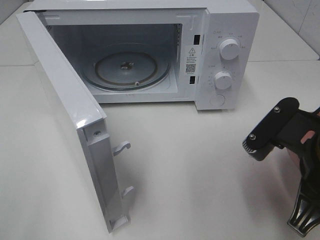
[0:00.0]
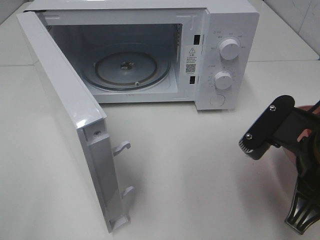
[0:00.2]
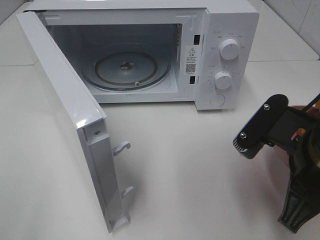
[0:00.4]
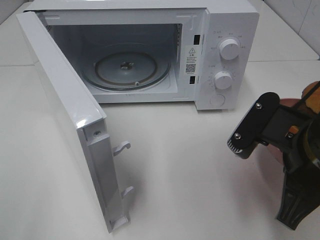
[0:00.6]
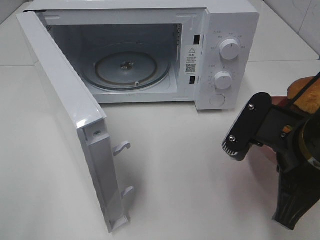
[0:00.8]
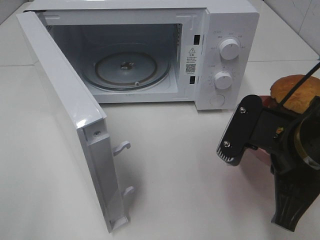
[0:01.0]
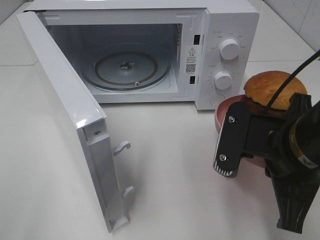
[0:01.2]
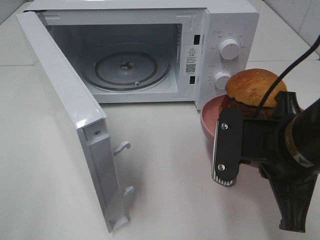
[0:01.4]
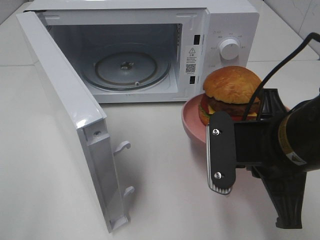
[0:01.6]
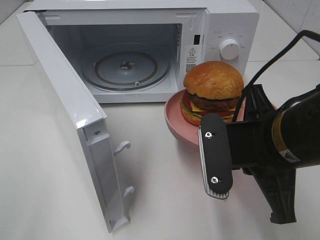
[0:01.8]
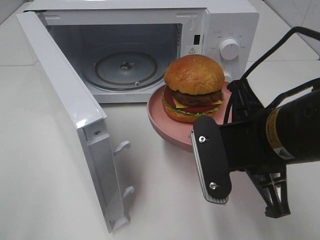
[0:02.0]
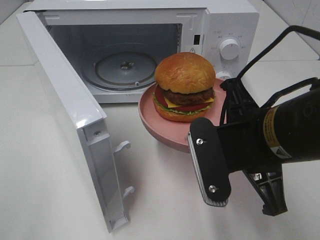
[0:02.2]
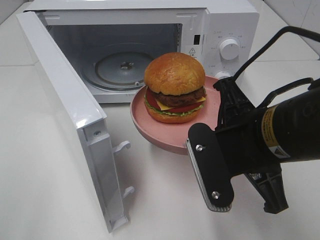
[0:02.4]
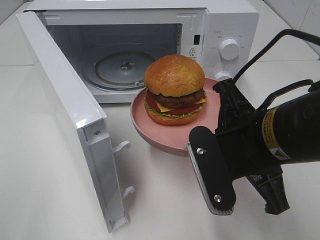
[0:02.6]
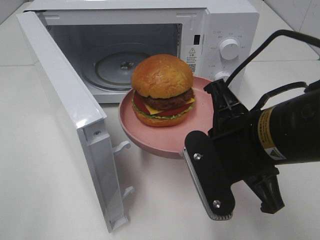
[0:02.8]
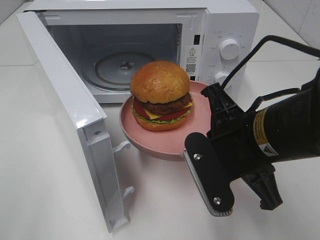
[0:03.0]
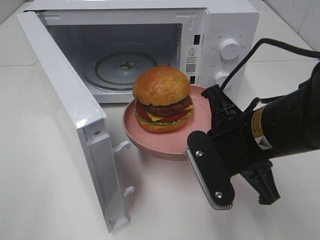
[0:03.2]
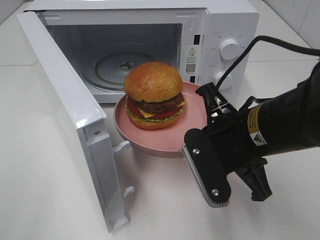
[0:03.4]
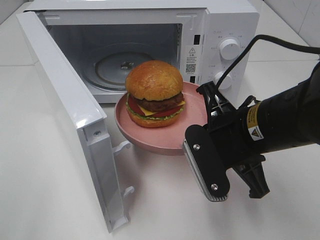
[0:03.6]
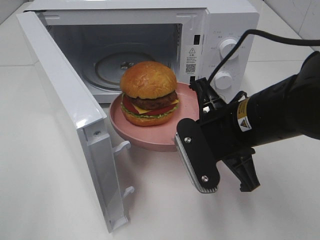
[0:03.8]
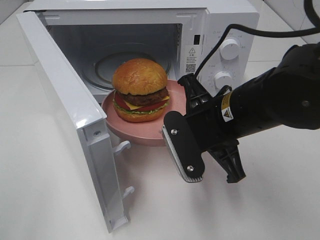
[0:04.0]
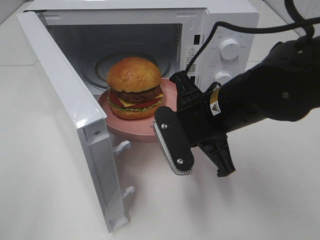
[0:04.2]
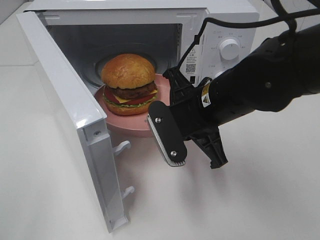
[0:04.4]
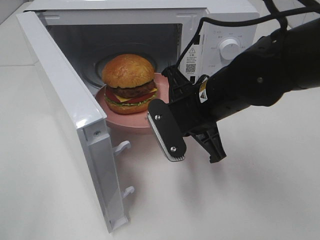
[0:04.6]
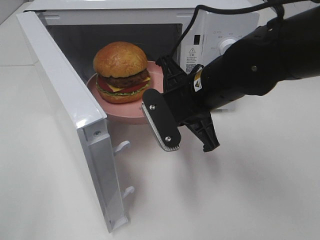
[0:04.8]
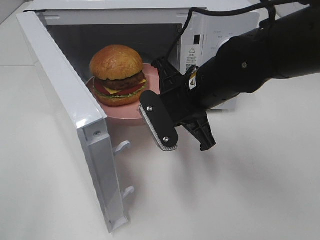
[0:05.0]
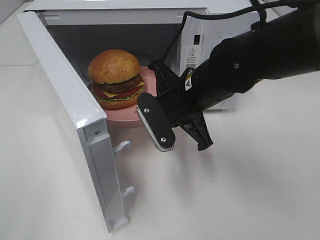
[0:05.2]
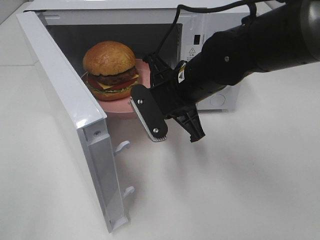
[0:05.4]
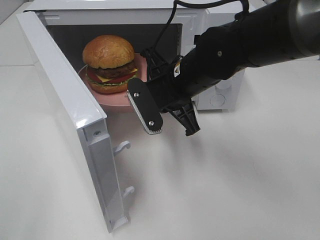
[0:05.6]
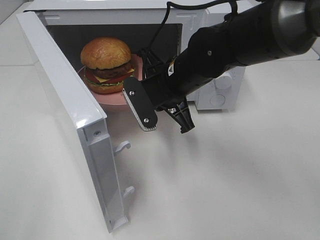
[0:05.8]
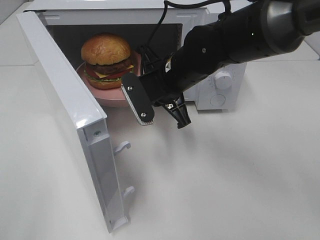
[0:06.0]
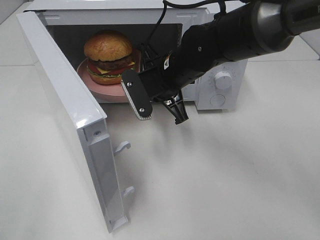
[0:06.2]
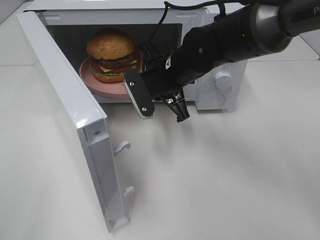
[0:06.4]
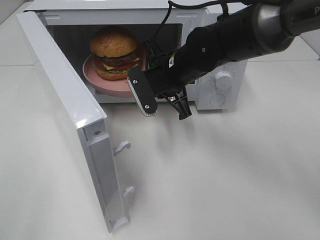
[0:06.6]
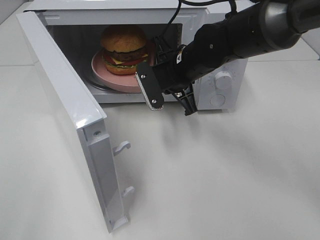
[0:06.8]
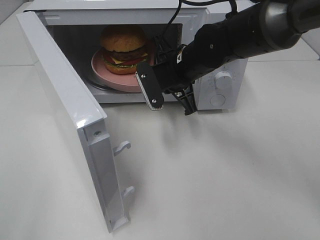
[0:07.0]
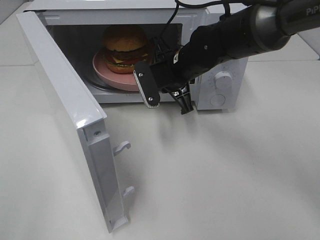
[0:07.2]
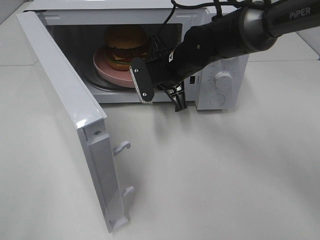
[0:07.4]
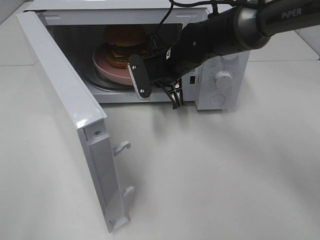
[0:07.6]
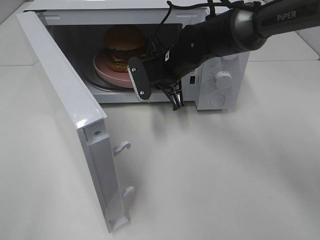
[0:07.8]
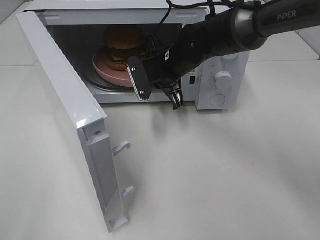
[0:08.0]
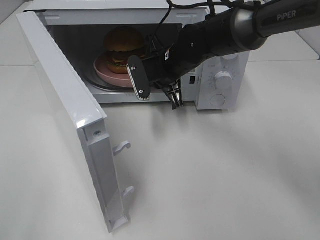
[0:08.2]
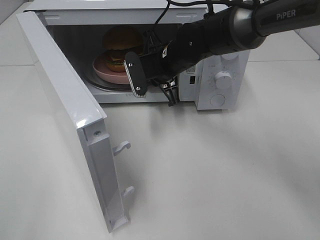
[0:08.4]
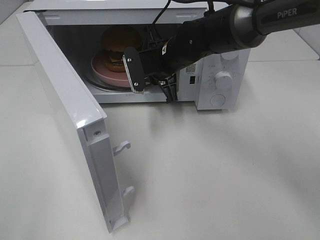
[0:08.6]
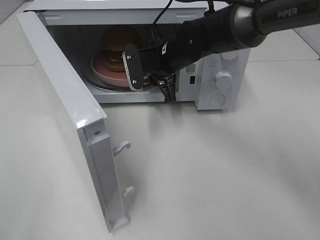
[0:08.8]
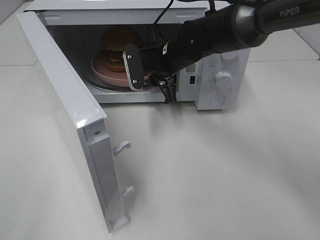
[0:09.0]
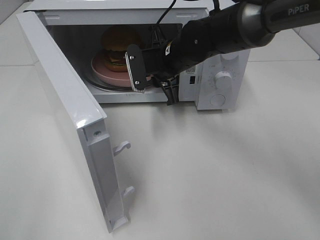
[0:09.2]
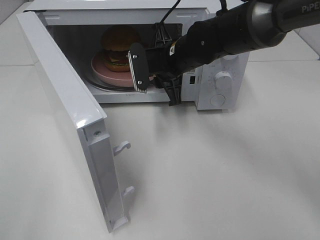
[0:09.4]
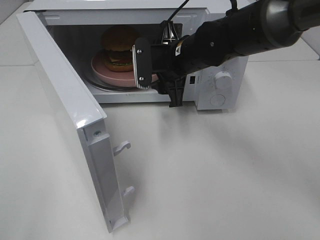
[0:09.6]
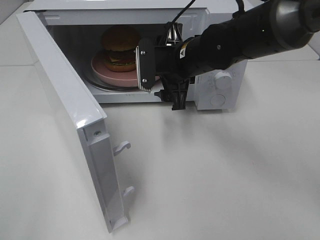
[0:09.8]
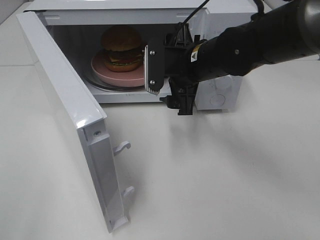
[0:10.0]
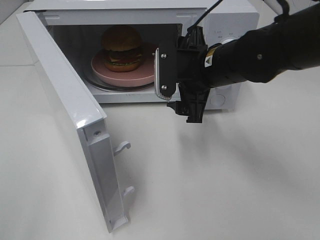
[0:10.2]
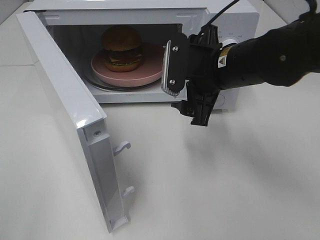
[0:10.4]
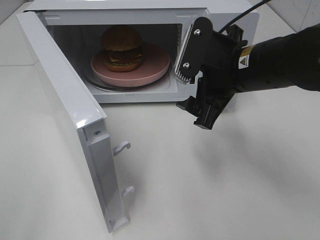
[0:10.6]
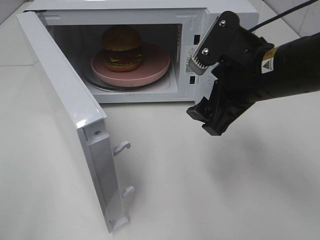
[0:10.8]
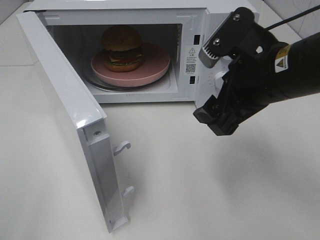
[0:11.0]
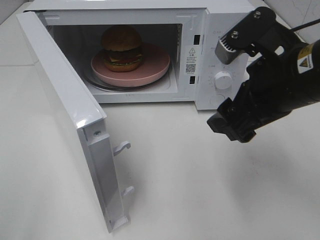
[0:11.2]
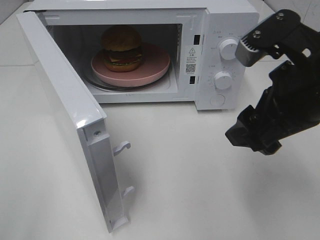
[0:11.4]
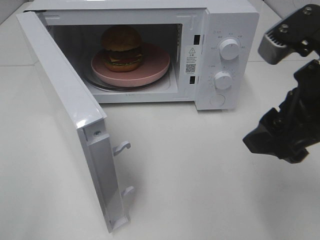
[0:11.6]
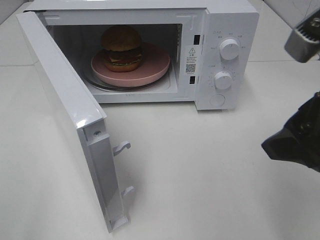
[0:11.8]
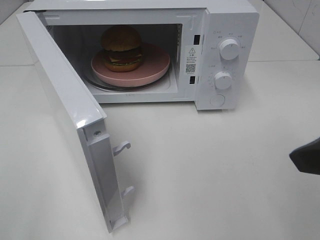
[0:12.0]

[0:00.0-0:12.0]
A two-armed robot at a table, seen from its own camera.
Task of the whole recording: Heat the burger.
Step, 0:00.0 to 0:08.6: Right hand: place the plate in the microwave.
0:03.0 to 0:04.4: The right gripper heads forward, covering about 10 cm.
0:04.4 to 0:06.0: The right gripper is displaced forward by about 10 cm.
0:06.0 to 0:07.6: The right gripper shifts roughly 5 cm forward.
0:07.6 to 0:09.0: The grippers make only small movements.
0:09.0 to 0:10.4: The right gripper heads backward and to the right, covering roughly 15 cm, and opens its fingers.
0:10.4 to 0:12.0: The right gripper is displaced backward, to the right and upward by approximately 25 cm.

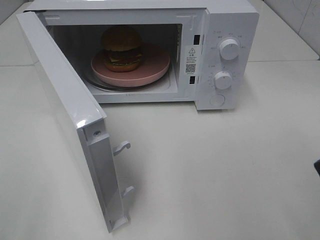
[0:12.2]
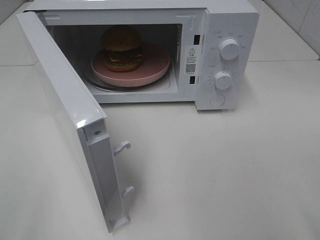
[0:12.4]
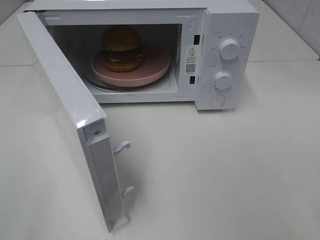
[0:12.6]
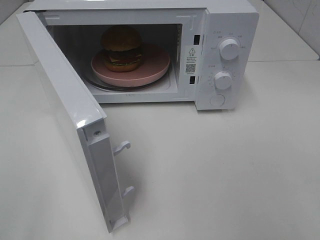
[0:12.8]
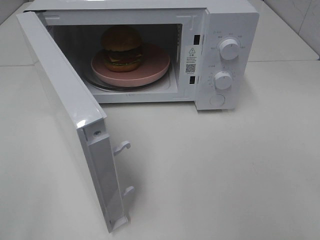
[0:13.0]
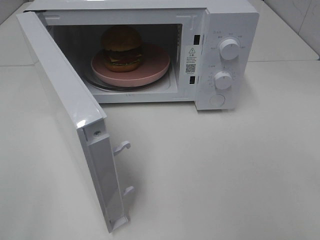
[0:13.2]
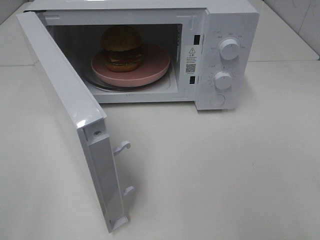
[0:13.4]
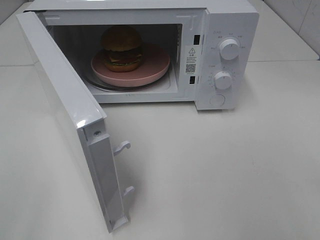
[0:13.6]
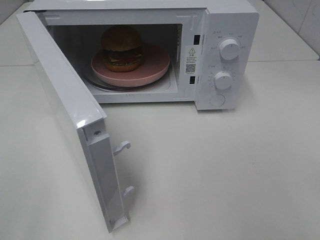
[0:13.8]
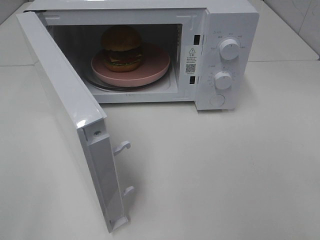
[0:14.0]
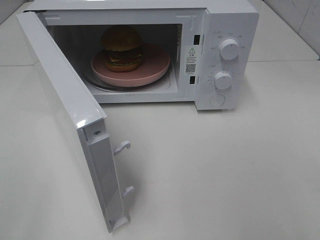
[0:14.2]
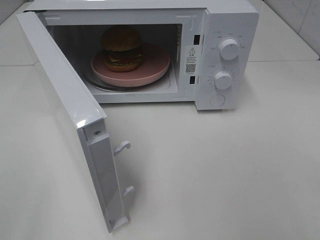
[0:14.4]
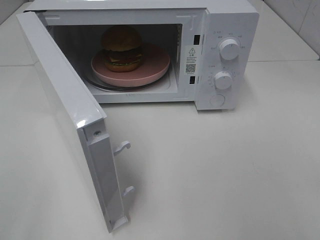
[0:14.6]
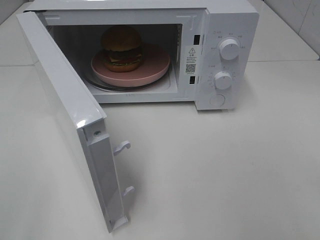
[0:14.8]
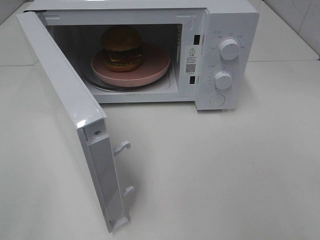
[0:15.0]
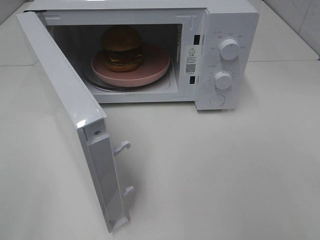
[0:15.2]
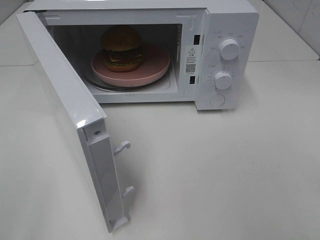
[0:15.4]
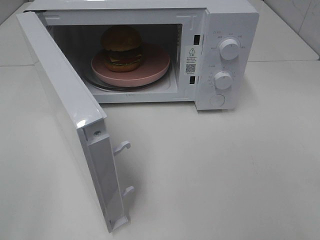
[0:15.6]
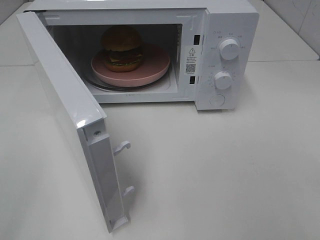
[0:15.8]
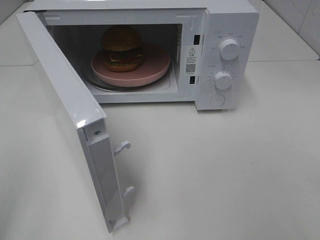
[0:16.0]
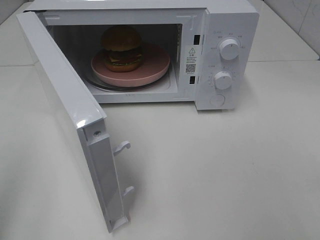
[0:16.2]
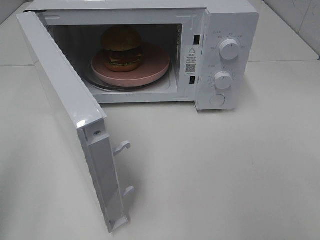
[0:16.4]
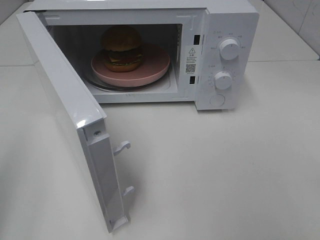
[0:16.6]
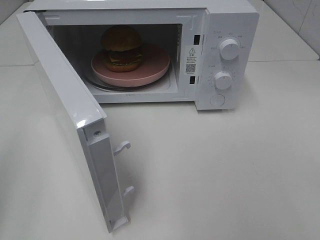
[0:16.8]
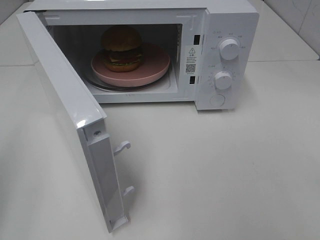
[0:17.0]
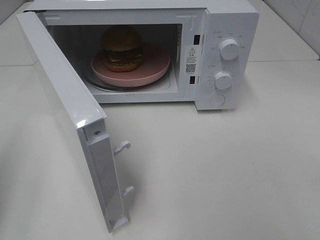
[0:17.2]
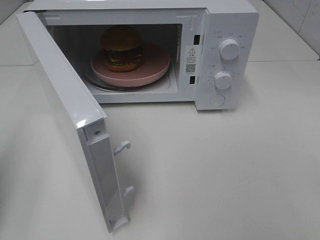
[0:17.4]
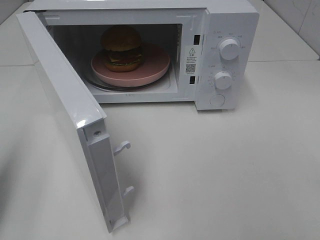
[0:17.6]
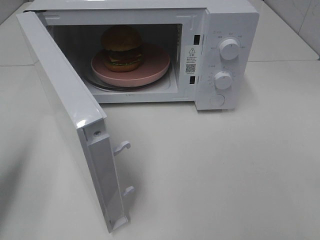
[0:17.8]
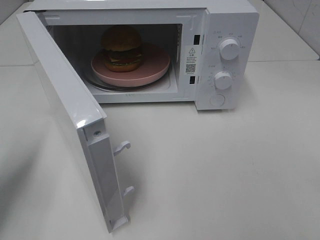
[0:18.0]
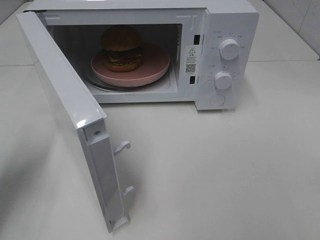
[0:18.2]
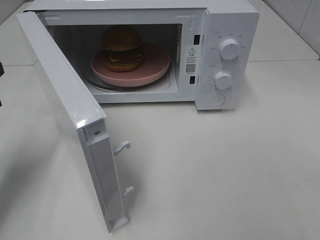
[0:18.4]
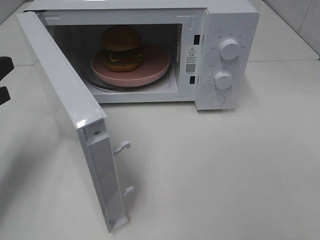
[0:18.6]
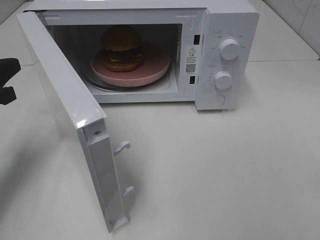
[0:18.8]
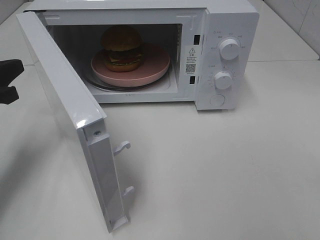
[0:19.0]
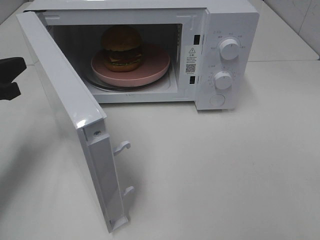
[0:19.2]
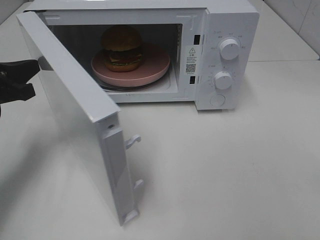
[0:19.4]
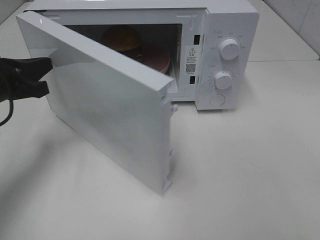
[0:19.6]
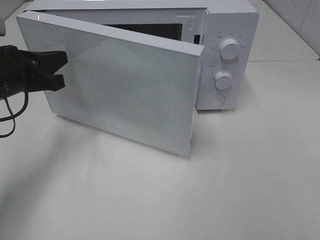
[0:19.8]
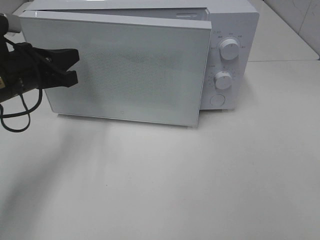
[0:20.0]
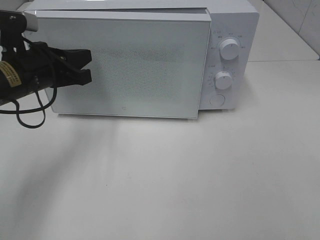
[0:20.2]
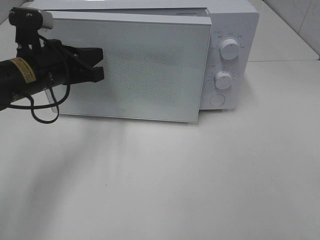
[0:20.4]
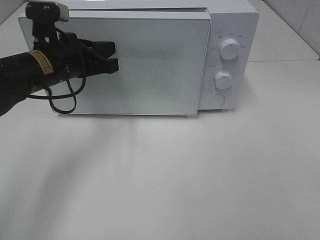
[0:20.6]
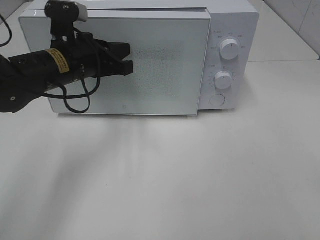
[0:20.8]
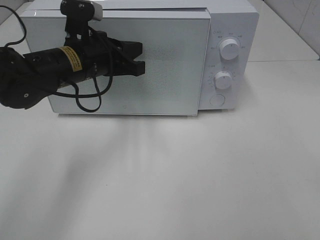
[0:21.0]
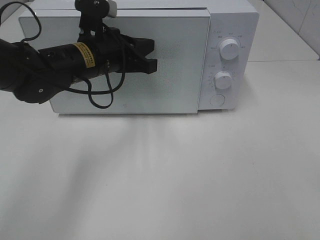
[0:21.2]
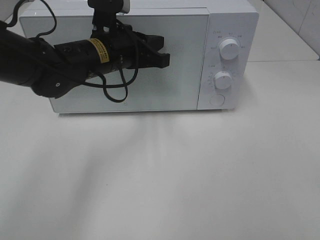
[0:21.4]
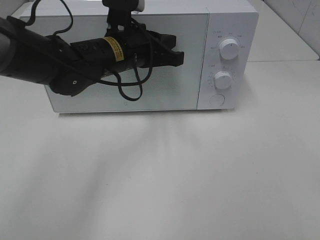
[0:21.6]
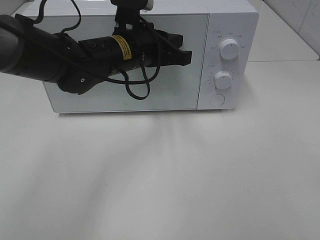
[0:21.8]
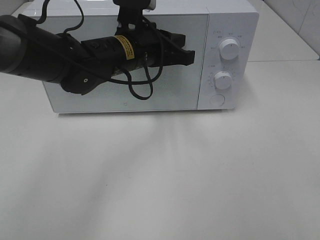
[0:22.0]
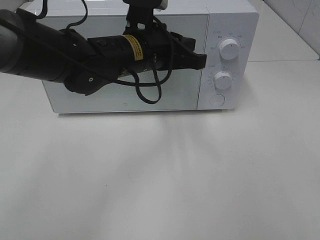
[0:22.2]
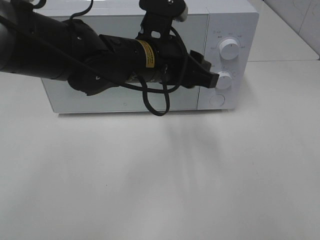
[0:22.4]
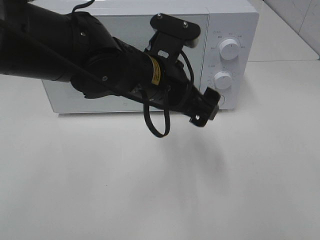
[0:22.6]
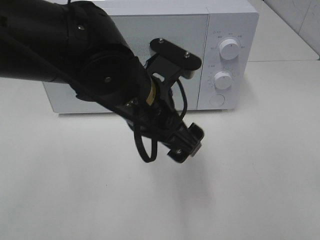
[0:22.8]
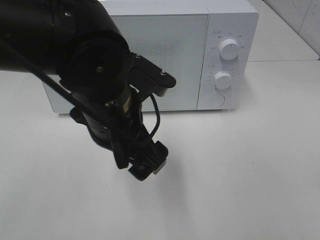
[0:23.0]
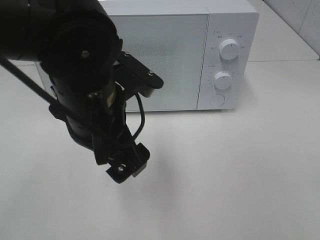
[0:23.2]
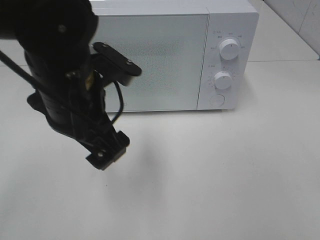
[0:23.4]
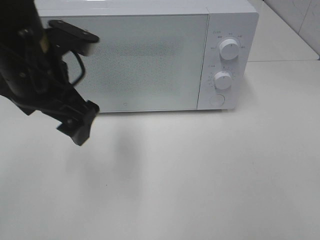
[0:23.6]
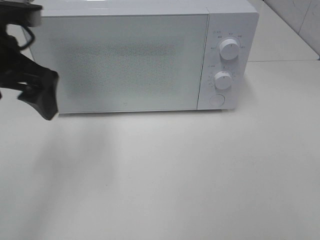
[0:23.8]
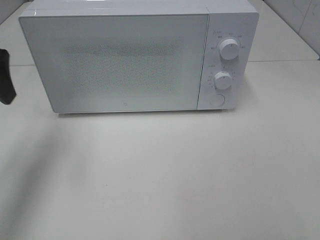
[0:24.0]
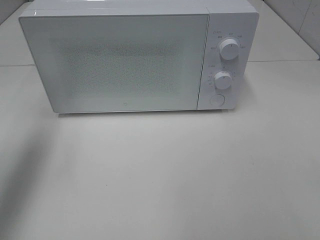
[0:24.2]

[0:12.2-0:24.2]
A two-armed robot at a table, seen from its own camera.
Task of the whole recording: Heat the burger.
Step, 0:12.2 to 0:21.6: Left hand: close the microwave door.
0:13.8 to 0:15.2: The two grippers keep their place.
0:16.6 to 0:18.2: The left gripper is displaced forward and downward by some 15 cm.
0:18.2 to 0:19.8: The left gripper goes some 10 cm forward and to the right.
0:19.8 to 0:21.2: The left gripper goes roughly 15 cm to the right.
0:21.2 to 0:22.6: The left gripper goes about 15 cm to the right and backward, and opens up.
0:22.6 to 0:24.2: The left gripper moves to the left and upward, roughly 30 cm.
